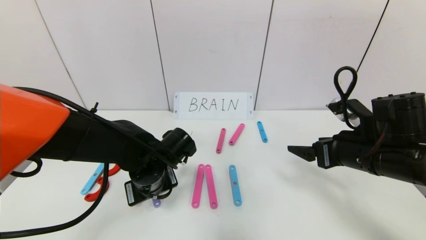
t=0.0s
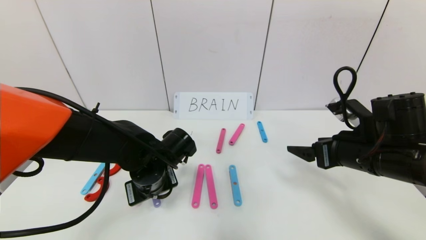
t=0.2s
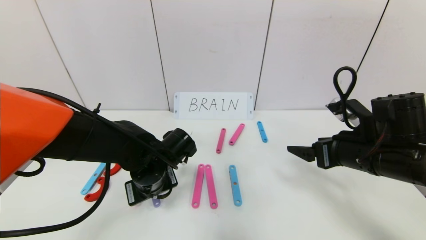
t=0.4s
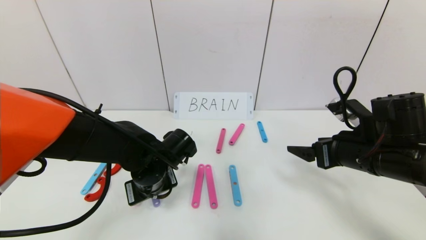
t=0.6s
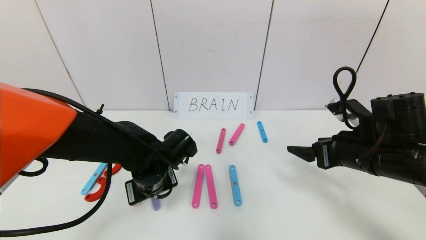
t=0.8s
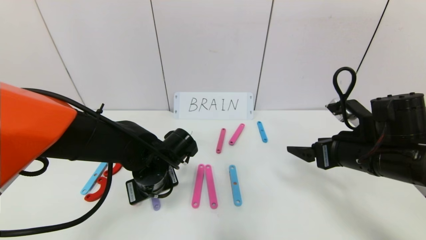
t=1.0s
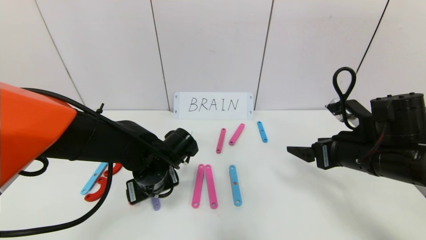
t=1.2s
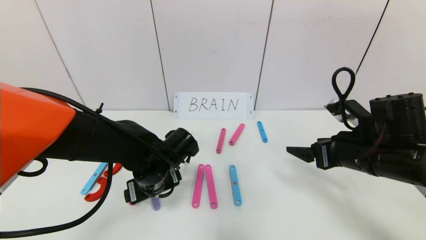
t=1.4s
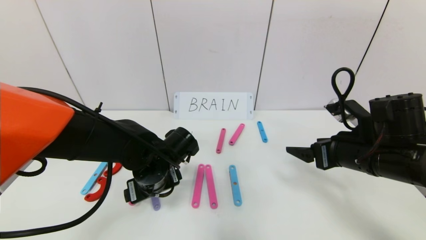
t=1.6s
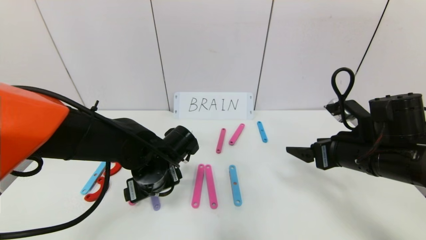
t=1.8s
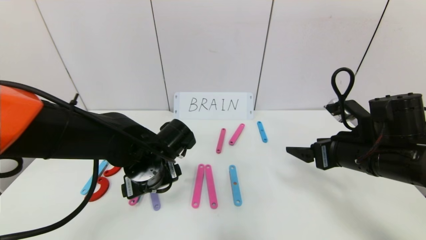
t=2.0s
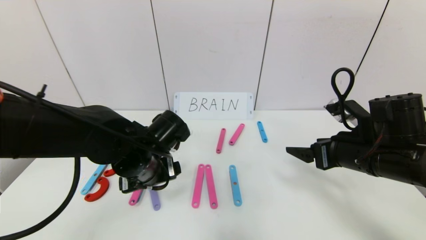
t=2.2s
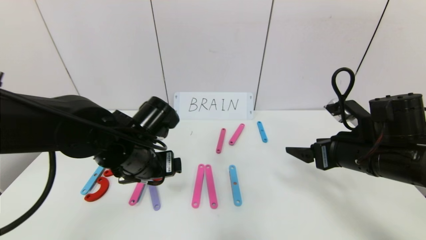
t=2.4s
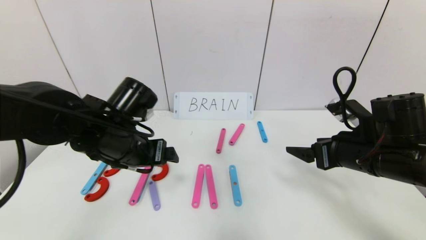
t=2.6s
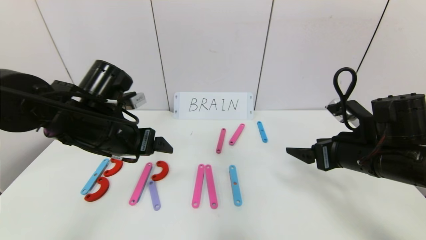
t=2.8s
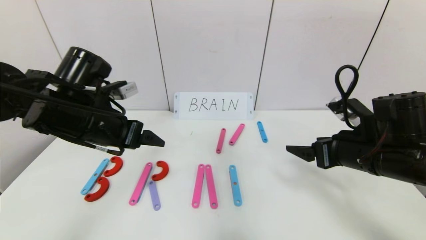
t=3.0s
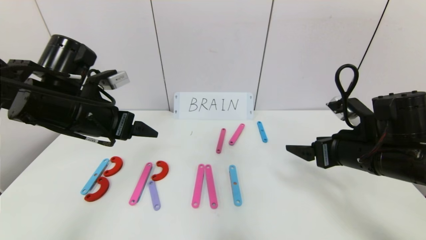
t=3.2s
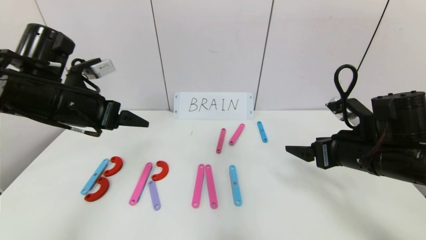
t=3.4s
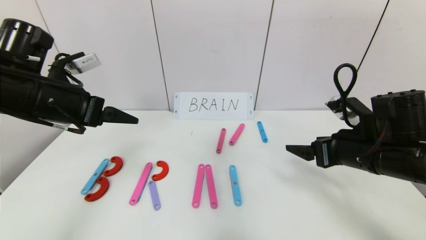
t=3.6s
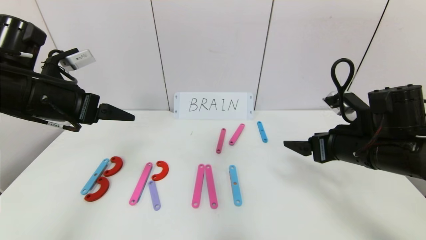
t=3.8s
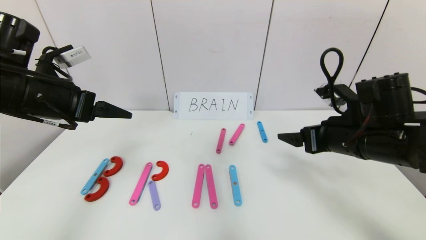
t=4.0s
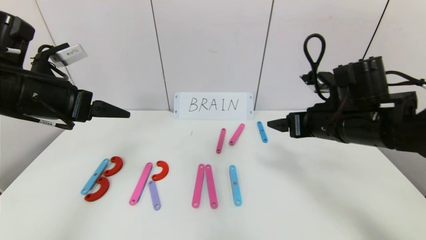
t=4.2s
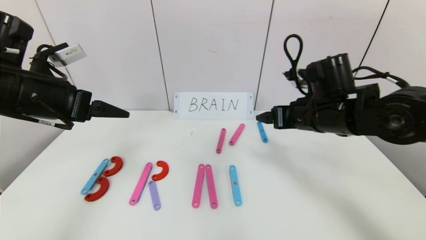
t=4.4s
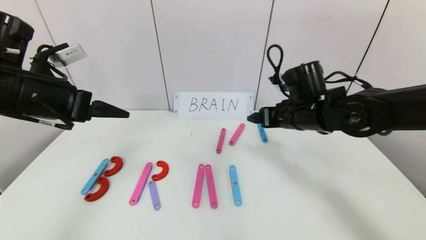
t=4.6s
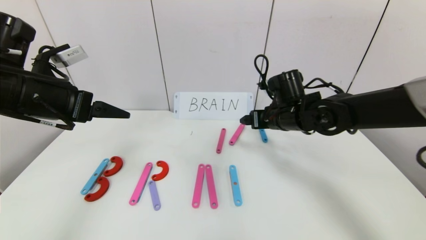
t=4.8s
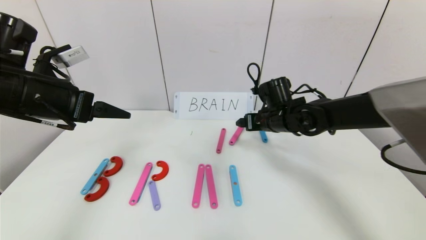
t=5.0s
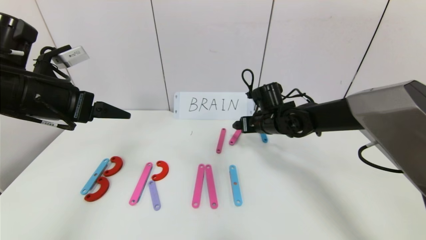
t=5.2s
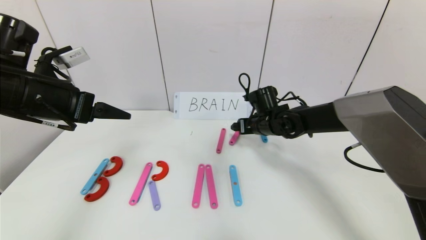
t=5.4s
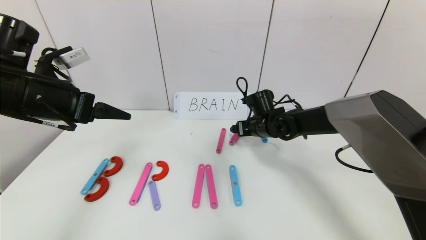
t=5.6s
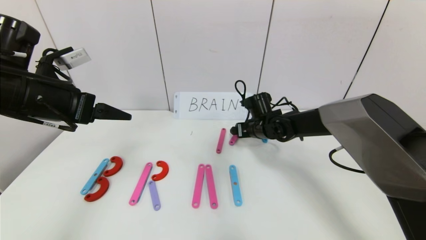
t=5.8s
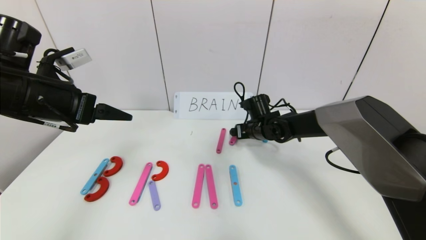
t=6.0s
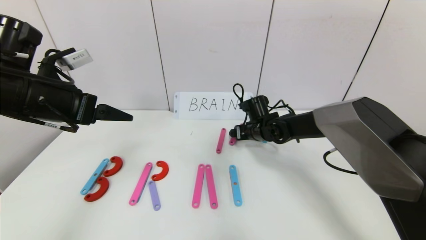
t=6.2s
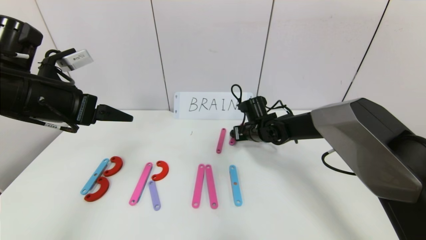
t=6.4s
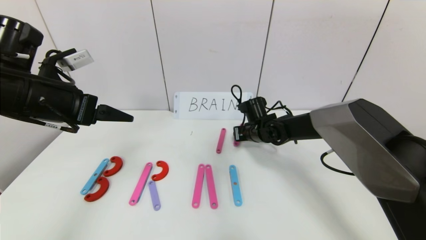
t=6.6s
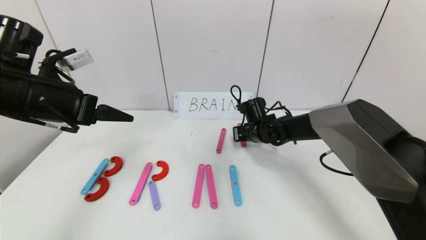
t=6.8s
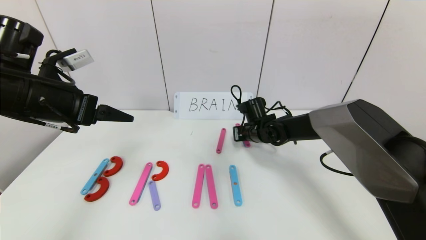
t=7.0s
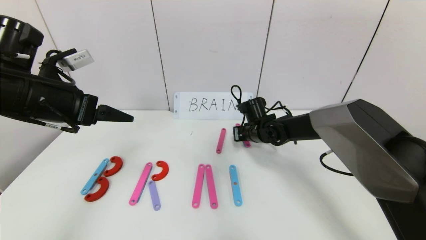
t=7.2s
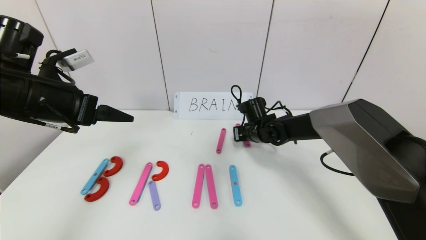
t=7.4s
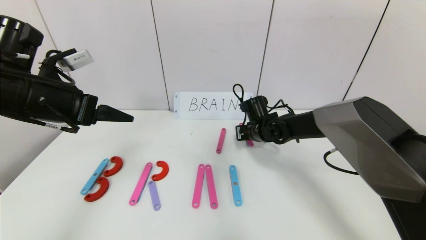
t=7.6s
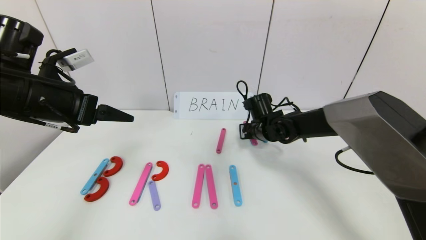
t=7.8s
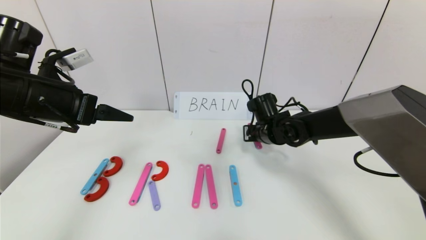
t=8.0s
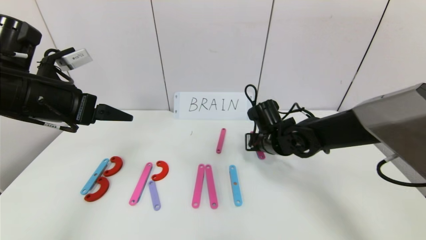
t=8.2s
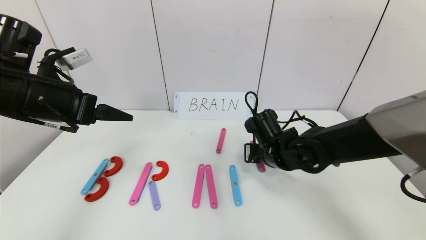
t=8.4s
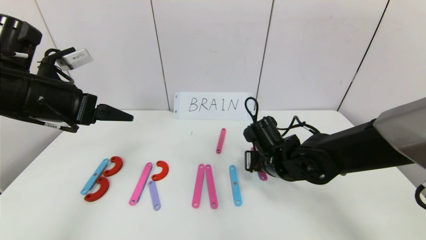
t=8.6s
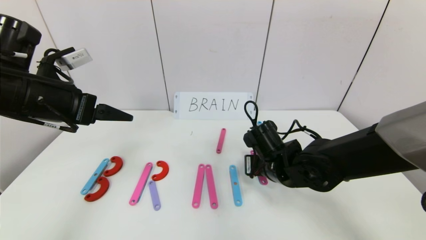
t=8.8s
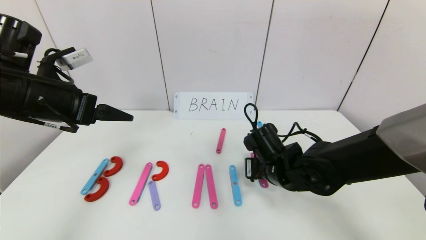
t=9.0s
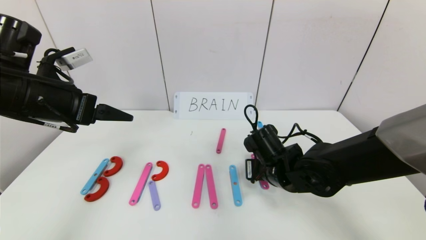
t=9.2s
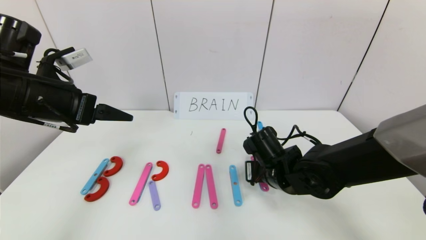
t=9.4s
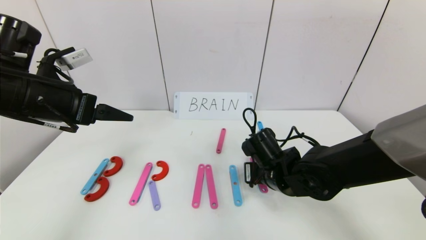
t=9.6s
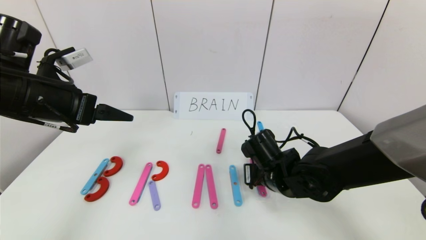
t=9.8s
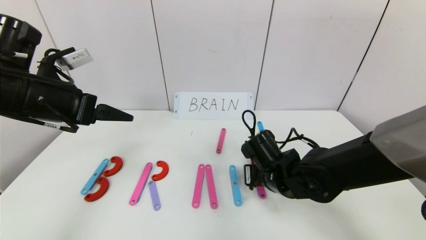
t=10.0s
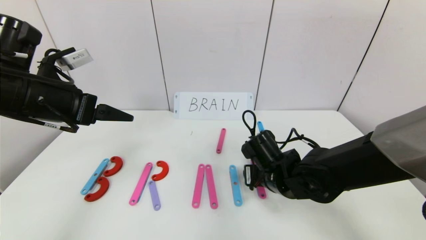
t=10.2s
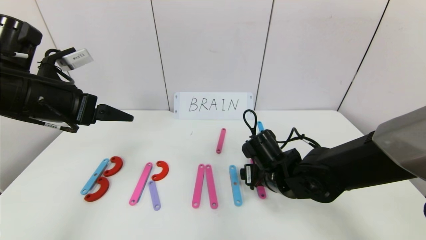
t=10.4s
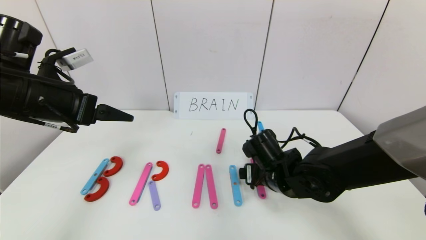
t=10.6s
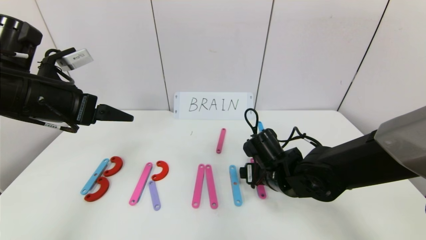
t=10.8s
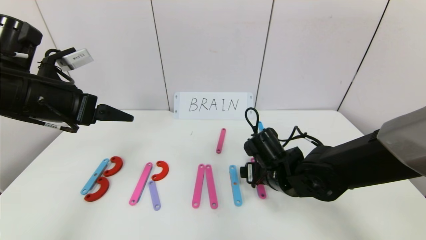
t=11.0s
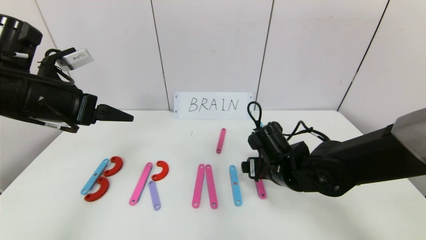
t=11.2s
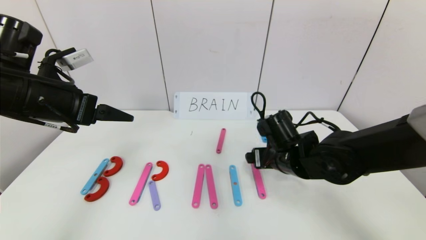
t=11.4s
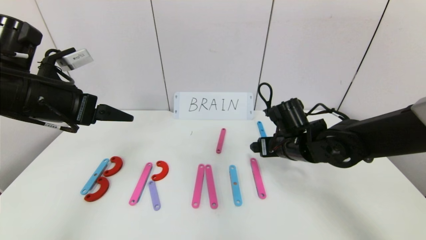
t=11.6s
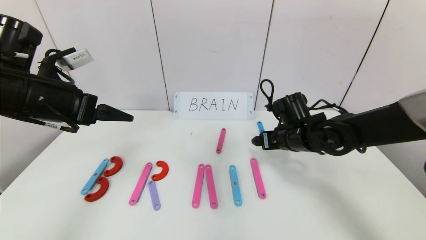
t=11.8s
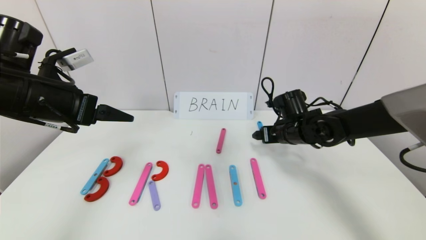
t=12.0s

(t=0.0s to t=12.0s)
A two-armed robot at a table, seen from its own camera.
Task of the whole recording: rearrange the word baai as brain.
t=0.0s - t=1.6s: The left gripper opens up.
t=1.6s - t=3.0s: The left gripper goes roughly 15 cm upward and to the left.
t=3.0s - t=4.4s: The right gripper moves forward and to the left, roughly 10 cm. The left gripper is displaced to the left and upward by some 10 cm.
t=4.4s - t=6.0s: The right gripper is displaced forward, downward and to the left by about 20 cm.
t=6.0s - t=7.6s: The right gripper closes up.
t=7.6s - t=9.0s: The right gripper goes approximately 15 cm backward.
t=9.0s - t=10.4s: The right gripper opens up.
t=10.4s - t=12.0s: The right gripper travels forward and to the right by about 10 cm.

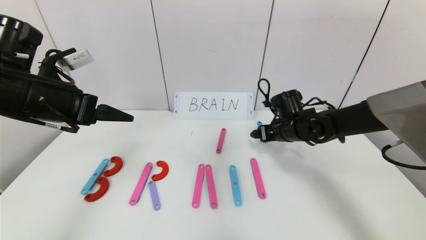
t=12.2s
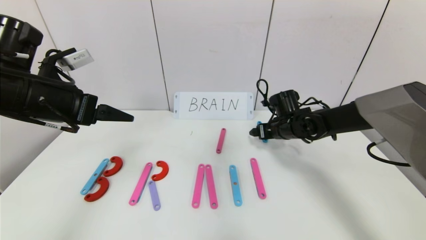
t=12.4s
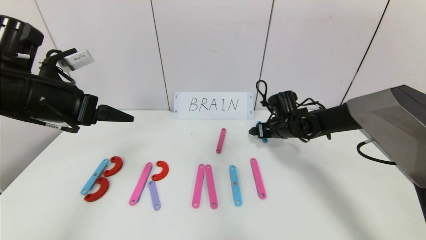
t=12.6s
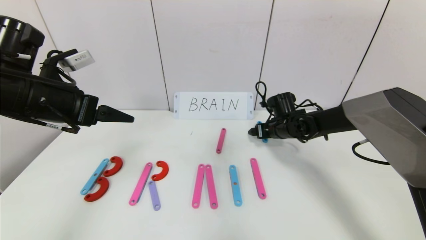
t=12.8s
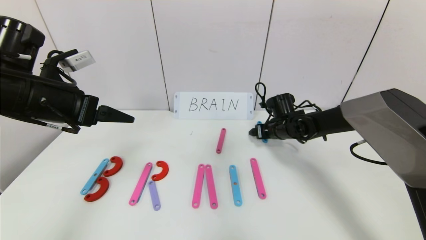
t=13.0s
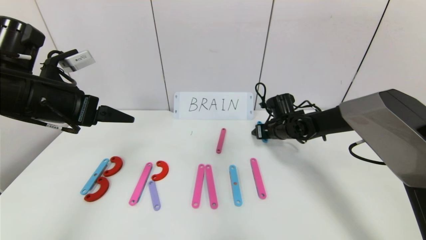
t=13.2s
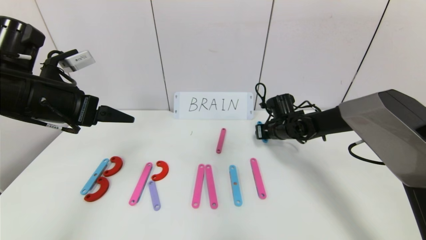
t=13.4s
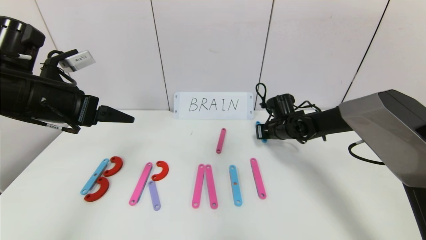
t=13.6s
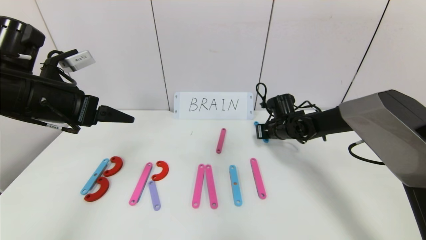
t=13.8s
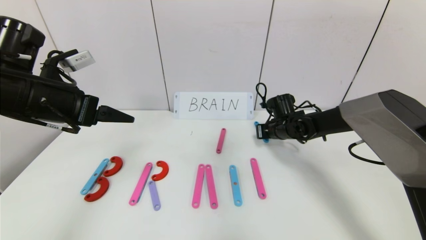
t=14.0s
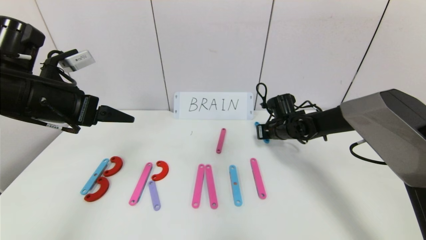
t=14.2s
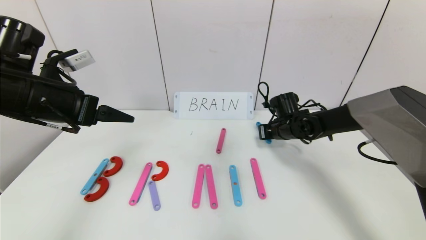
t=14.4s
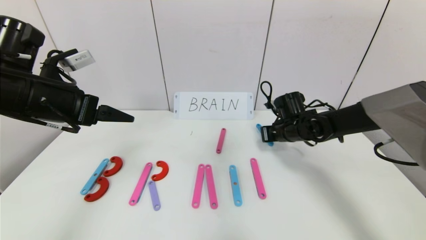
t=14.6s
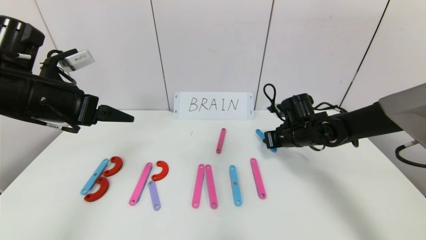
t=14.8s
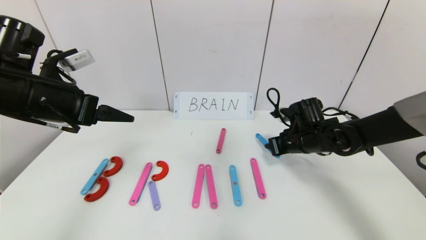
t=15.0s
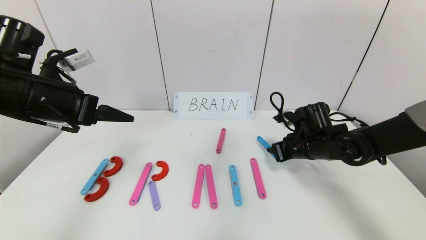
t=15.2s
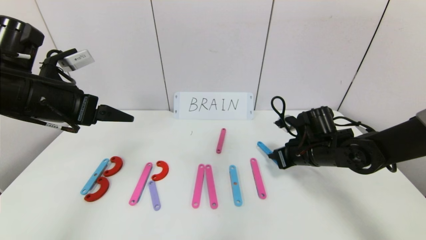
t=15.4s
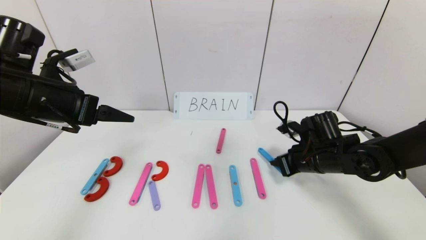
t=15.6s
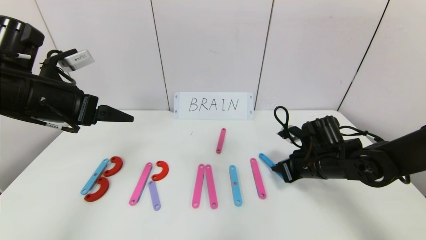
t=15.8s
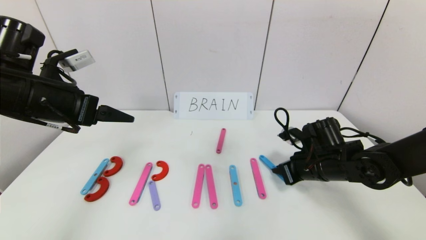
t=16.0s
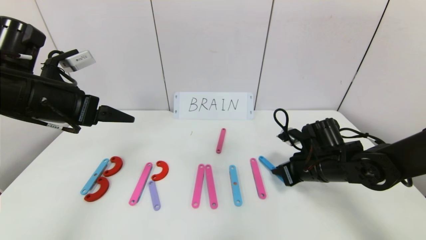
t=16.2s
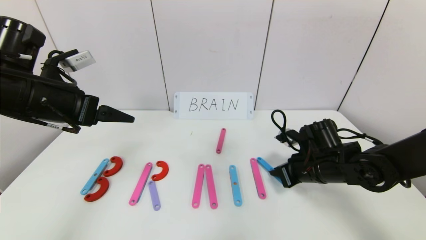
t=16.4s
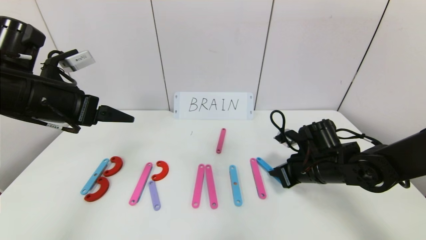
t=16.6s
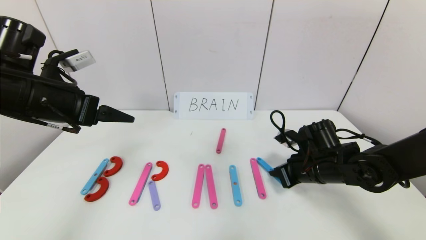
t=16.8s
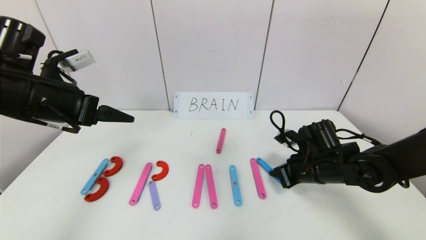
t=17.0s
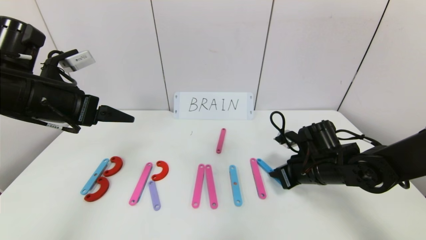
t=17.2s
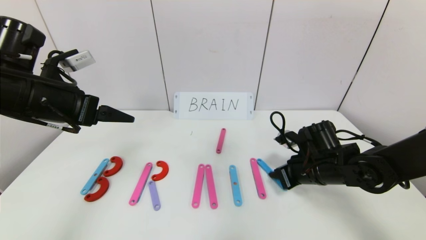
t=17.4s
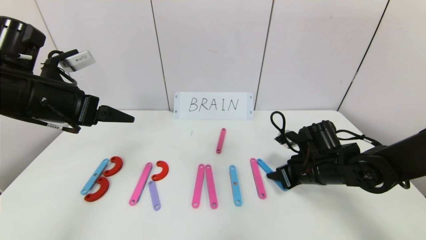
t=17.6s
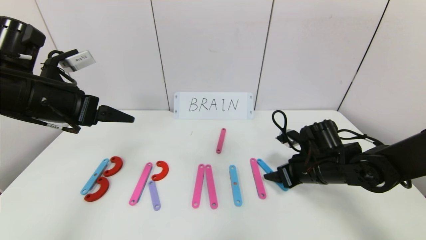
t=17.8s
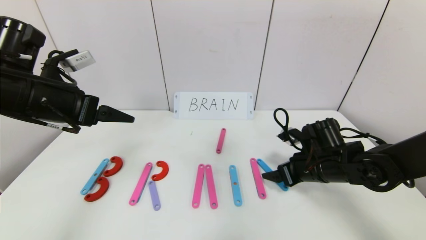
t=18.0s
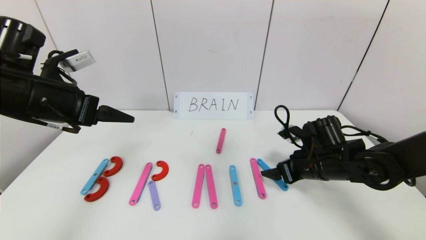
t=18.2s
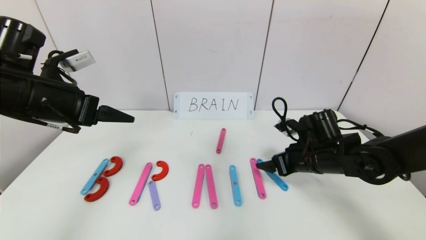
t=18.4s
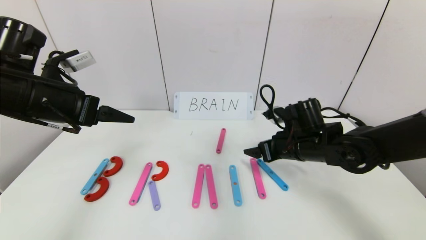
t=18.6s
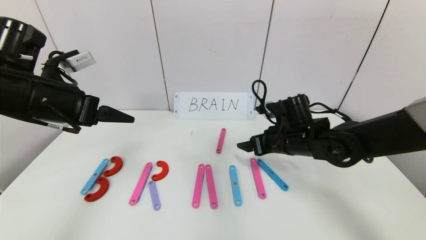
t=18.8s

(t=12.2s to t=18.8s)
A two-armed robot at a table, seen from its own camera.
Task of the whole recording: rearrange the word baai as brain.
t=12.2s - t=13.8s: The right gripper moves approximately 5 cm, and closes.
t=13.8s - t=15.4s: The right gripper is displaced backward by some 10 cm.
t=15.4s - t=17.2s: There are only small adjustments of the grippers.
t=17.2s - t=18.8s: The right gripper travels to the left by some 5 cm, and opens its fingers.
